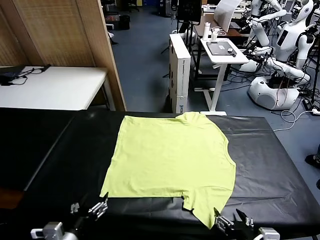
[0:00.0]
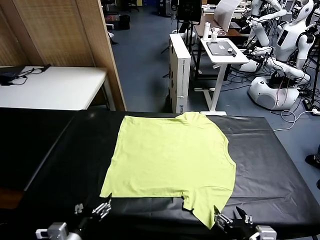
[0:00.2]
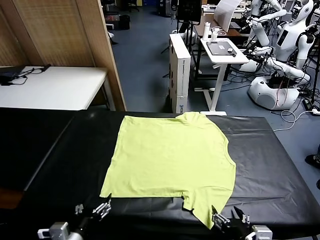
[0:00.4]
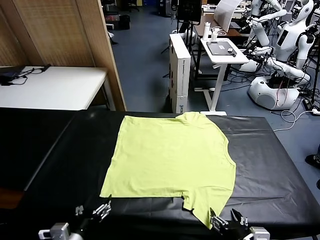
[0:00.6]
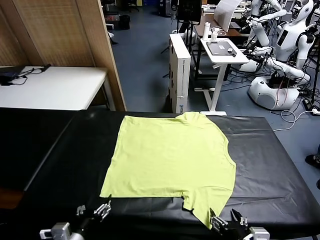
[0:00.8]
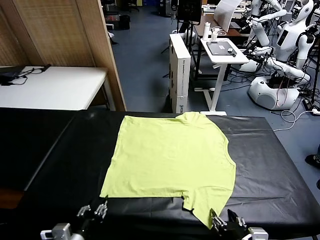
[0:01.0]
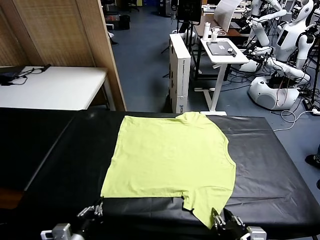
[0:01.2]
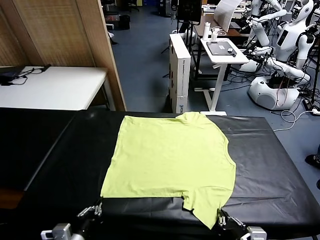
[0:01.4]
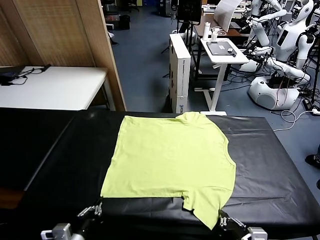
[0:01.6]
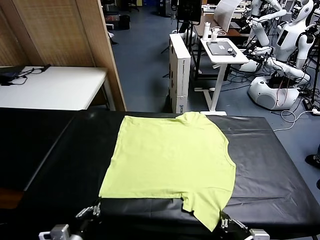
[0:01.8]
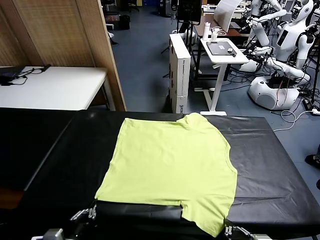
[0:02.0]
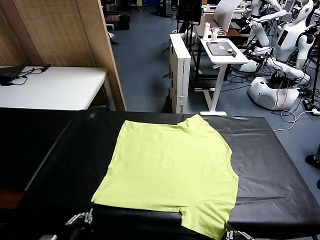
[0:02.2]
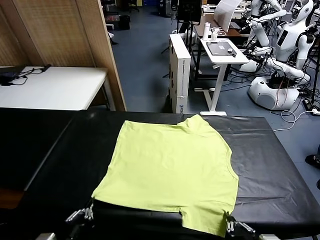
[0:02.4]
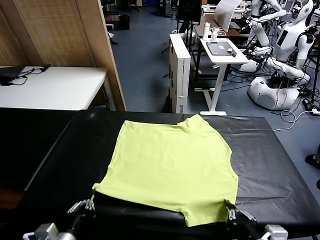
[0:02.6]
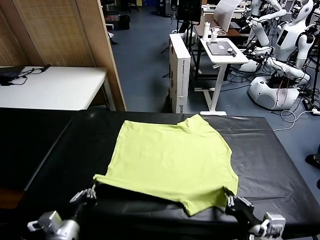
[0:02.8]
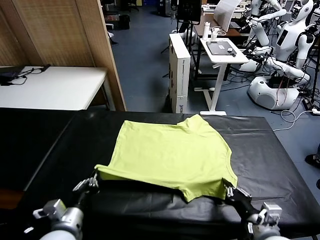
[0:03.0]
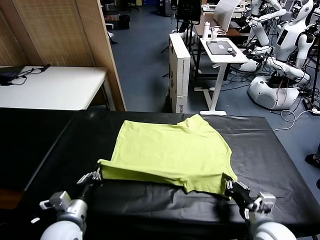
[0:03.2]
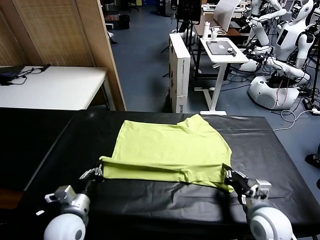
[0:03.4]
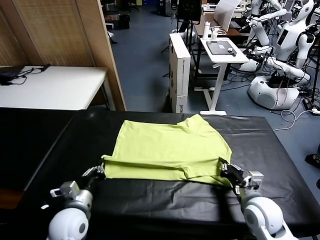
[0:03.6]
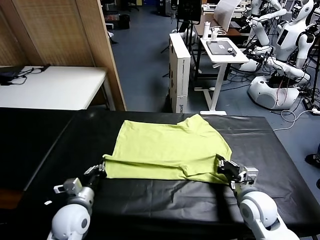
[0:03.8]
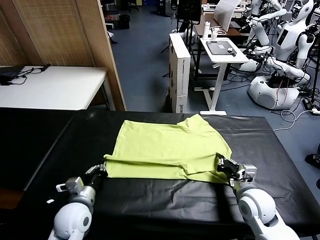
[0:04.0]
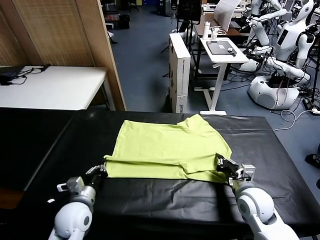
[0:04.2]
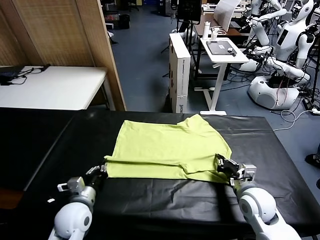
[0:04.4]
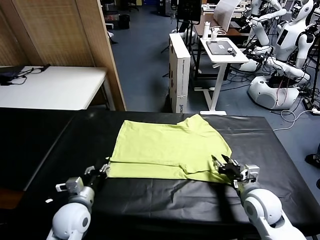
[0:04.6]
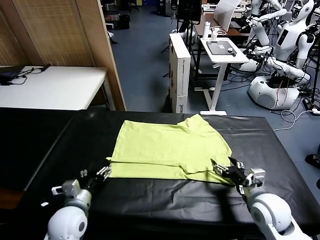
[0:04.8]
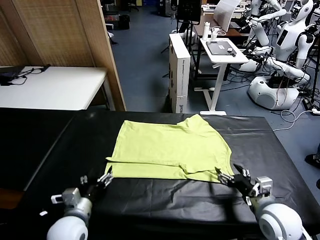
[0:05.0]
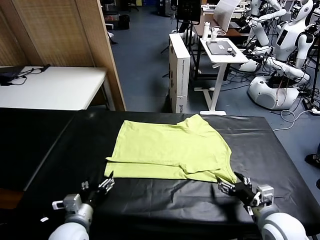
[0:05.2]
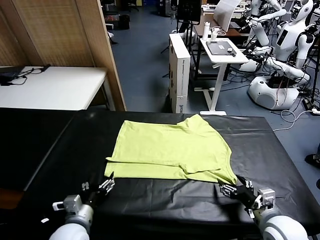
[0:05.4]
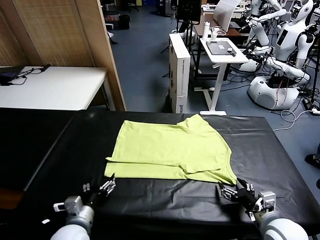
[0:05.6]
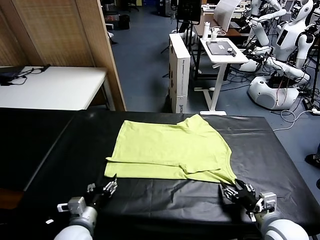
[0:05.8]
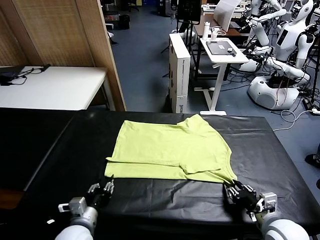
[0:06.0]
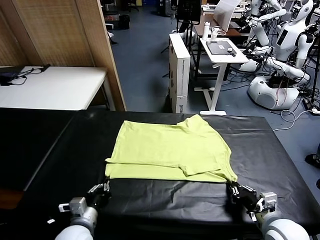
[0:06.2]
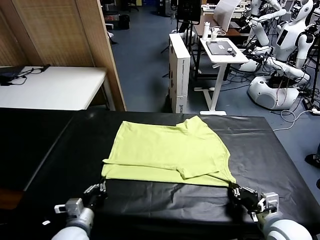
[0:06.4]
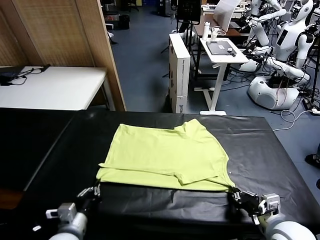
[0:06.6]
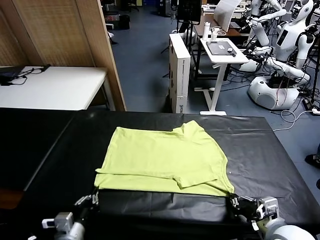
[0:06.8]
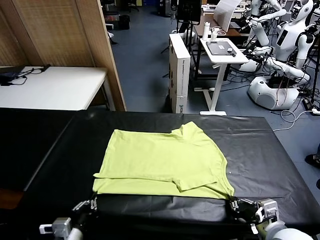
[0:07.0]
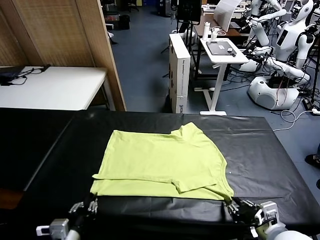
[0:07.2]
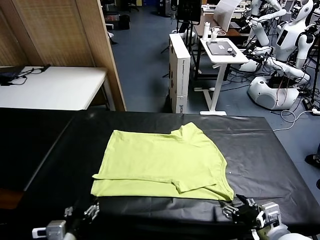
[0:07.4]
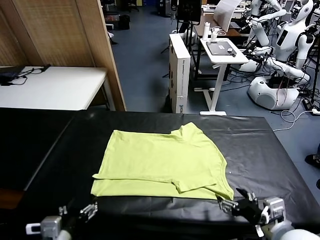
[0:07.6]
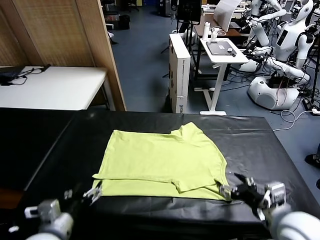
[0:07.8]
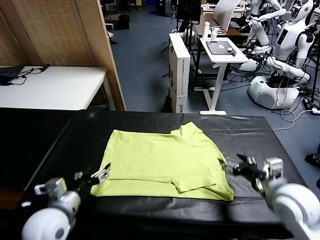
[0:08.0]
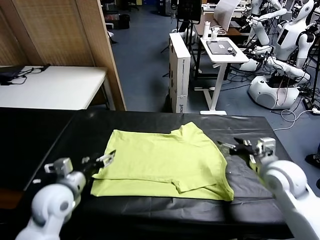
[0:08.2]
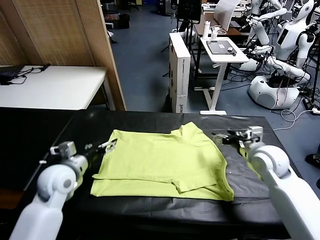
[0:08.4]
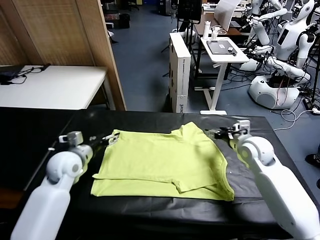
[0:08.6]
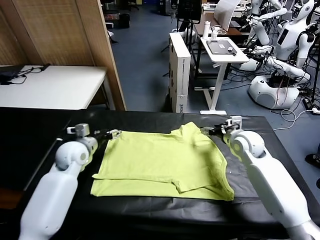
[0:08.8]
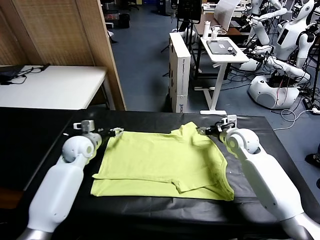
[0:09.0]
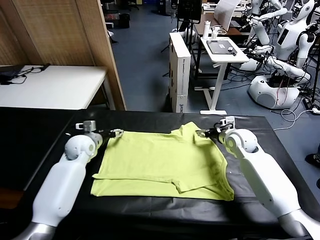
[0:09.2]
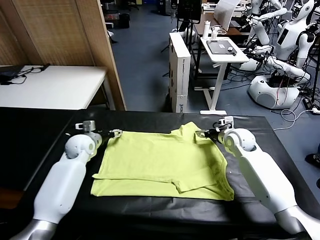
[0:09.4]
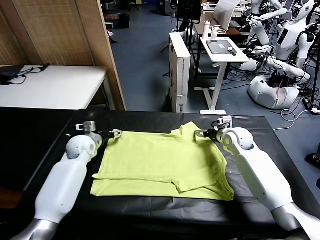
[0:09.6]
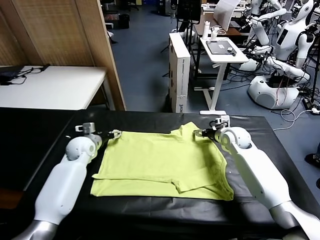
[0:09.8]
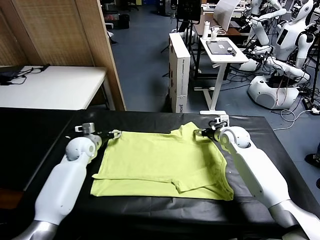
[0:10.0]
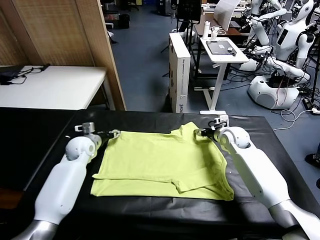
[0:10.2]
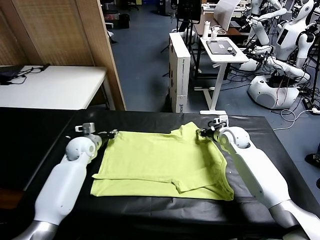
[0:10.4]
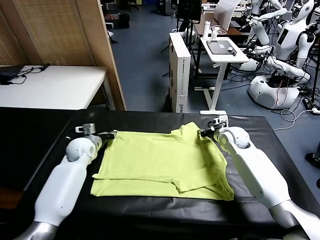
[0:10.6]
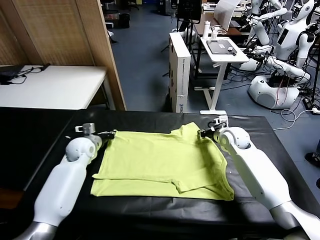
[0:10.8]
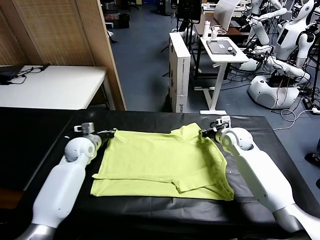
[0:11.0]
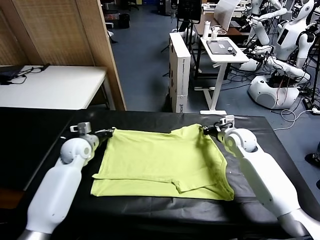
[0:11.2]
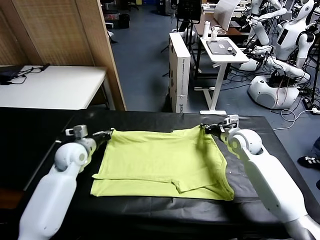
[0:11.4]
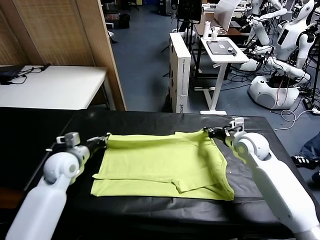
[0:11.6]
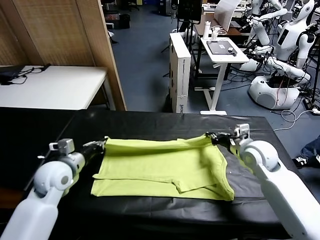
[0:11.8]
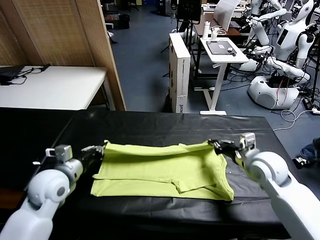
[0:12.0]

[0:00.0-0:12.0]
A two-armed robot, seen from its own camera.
Task of the whole recording: fold and organize the clothes.
Step, 0:00.0 to 0:01.6: use both grippers simultaneously to clamp the lower edge of the clothing fabric.
Step, 0:01.8 to 0:04.6: use both grippers to drag the lower edge of the fabric forward and fold it over the upper edge.
Step, 0:04.8 to 0:07.4: Drag the clothes downward with both gripper.
Step, 0:07.6 to 0:11.0: use both grippers simultaneously to clamp the upper edge of the clothing fabric.
0:01.6 to 0:03.0: The right gripper heads forward, covering about 15 cm; the left gripper is displaced forward by roughly 10 cm.
0:03.0 to 0:04.4: The right gripper opens its fingers; the left gripper opens up.
0:04.4 to 0:06.0: Both grippers travel together backward, approximately 5 cm. The right gripper closes; the left gripper closes.
0:06.0 to 0:07.6: Both grippers travel together upward, about 10 cm. The right gripper opens. The left gripper opens.
0:07.6 to 0:09.0: The two grippers go roughly 30 cm forward.
0:09.0 to 0:10.4: The left gripper closes up; the right gripper closes.
0:10.4 to 0:12.0: The grippers both shift backward by about 20 cm.

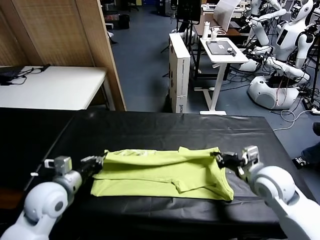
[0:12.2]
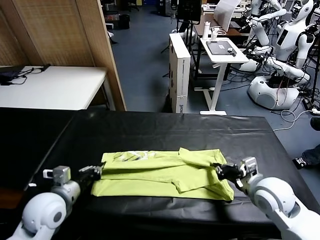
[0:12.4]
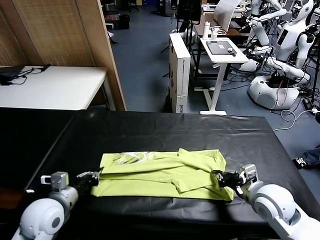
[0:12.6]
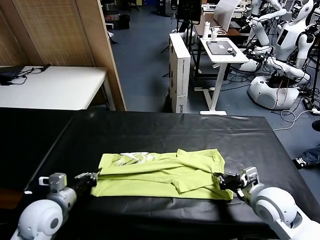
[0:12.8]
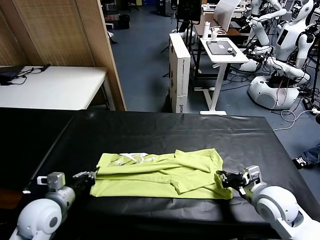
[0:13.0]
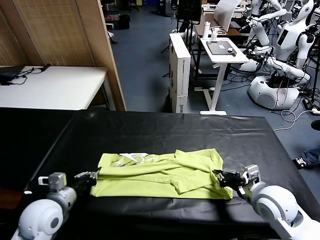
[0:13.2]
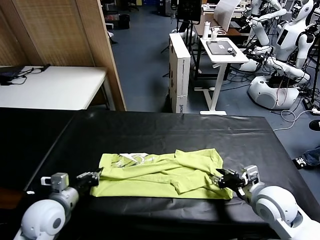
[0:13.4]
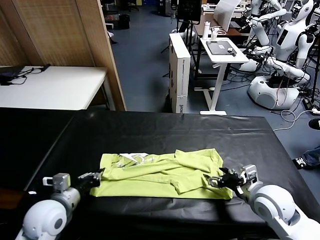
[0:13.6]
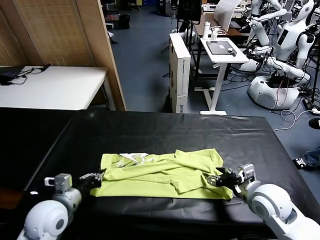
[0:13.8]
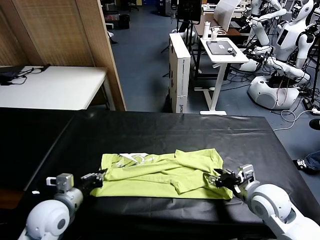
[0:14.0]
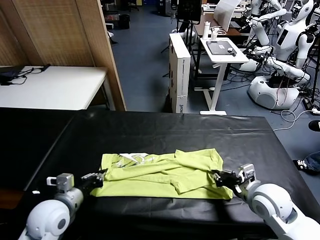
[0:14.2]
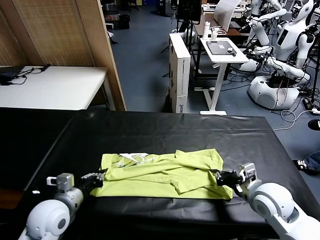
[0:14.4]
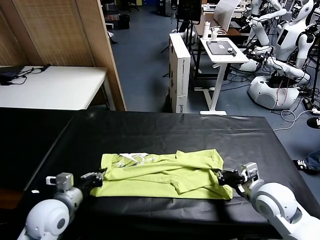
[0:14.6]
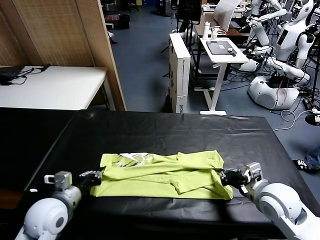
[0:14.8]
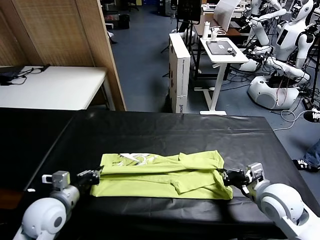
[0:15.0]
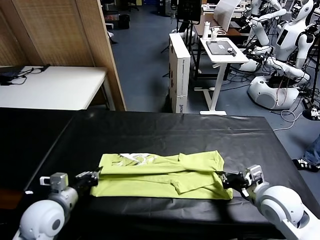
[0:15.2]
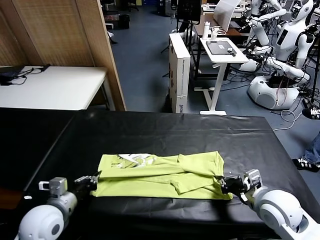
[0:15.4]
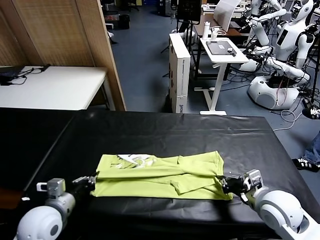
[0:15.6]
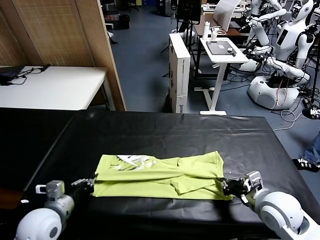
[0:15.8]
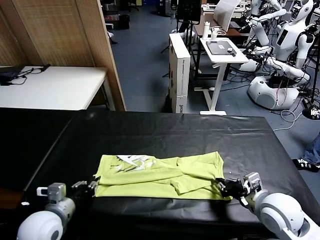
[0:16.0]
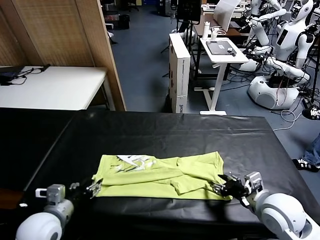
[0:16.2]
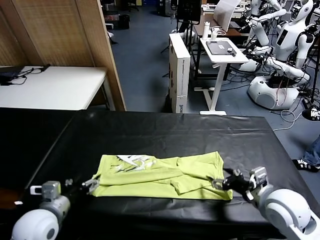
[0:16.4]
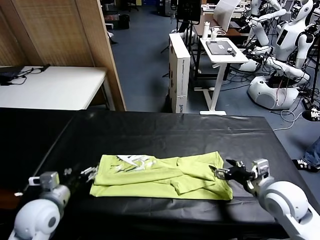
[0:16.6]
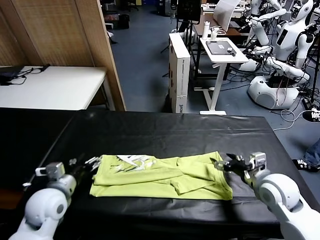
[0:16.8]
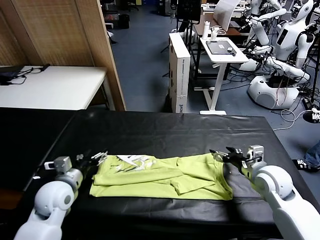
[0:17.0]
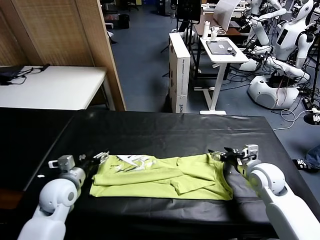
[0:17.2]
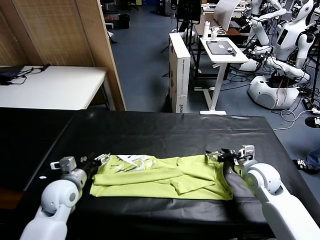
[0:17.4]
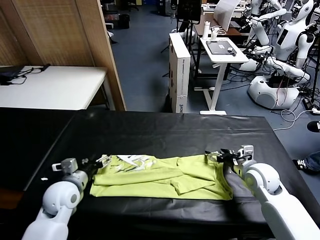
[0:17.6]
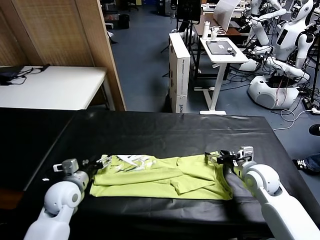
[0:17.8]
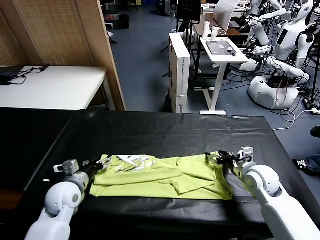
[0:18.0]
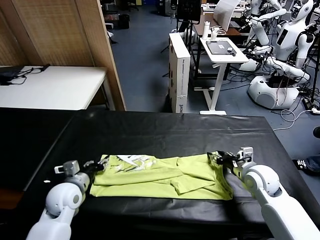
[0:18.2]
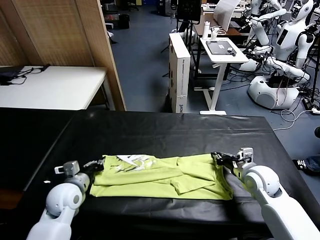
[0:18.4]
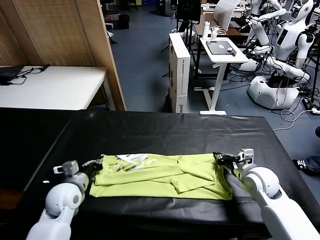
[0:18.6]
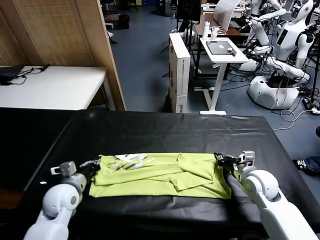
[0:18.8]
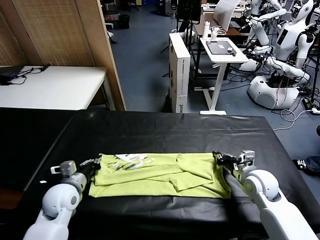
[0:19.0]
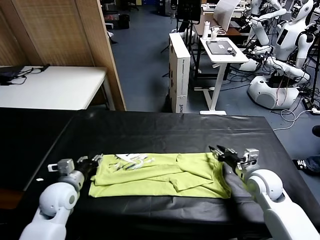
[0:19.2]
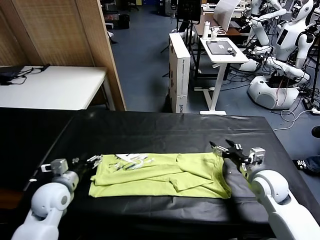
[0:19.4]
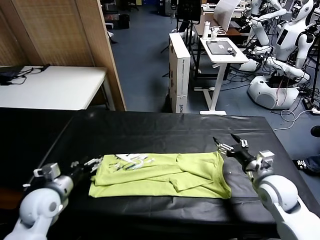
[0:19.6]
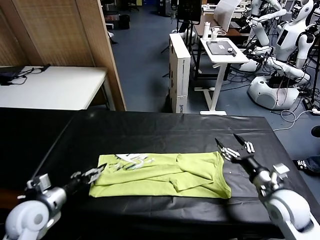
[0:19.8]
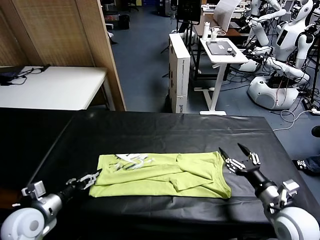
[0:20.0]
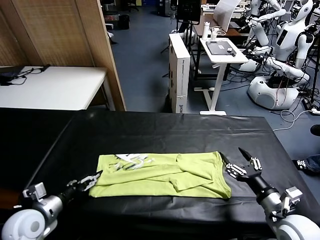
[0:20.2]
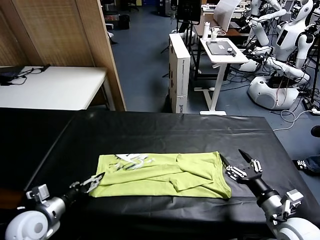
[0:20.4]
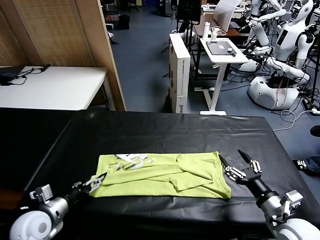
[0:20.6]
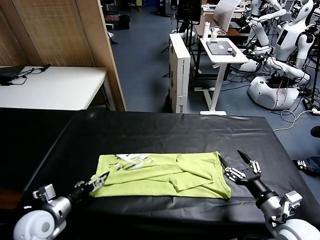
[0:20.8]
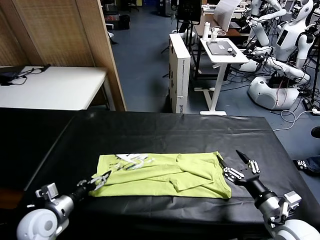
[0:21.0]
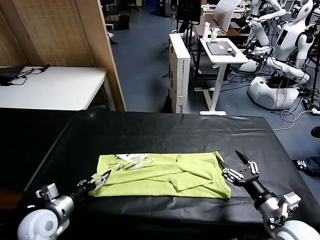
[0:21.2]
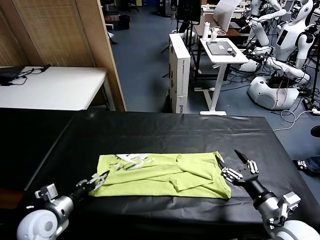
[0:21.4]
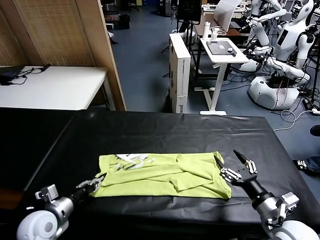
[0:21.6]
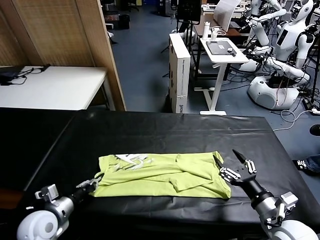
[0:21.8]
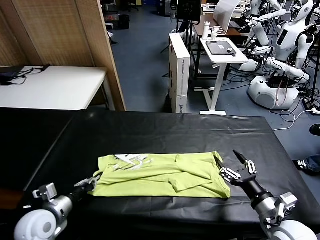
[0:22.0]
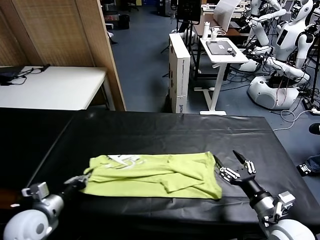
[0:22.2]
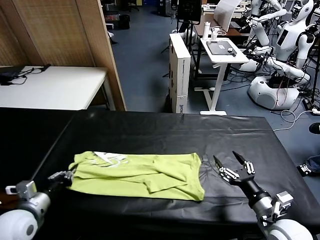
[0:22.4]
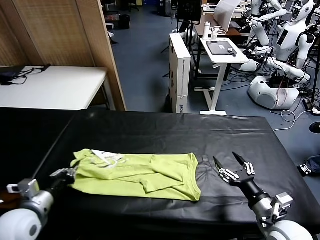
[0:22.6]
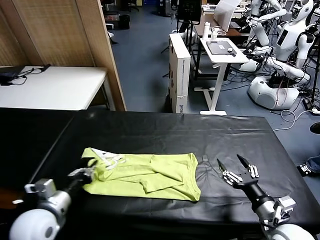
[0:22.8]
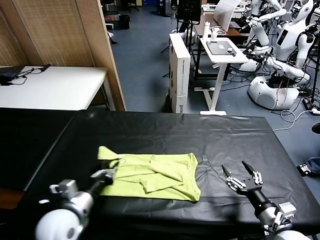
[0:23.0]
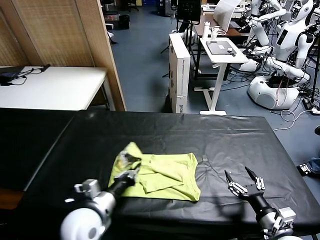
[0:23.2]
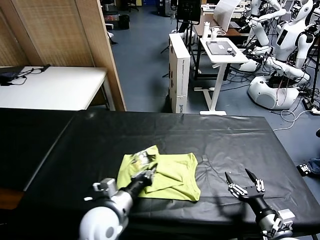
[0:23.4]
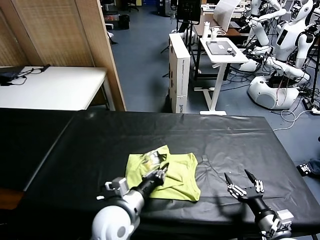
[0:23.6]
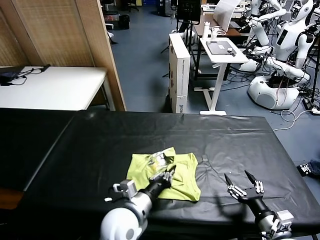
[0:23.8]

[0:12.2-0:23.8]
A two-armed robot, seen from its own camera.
Task of the whole recording: fold and organize the clothes.
Step, 0:12.2 to 0:16.2: use both grippers to drag the upper edge of the fabric backward and fold it over the lower edge.
Step, 0:16.6 to 0:21.8: use the left gripper to clamp the left edge of the fabric.
0:12.2 to 0:13.6: The right gripper opens.
0:13.6 to 0:15.0: The right gripper closes its fingers.
0:15.0 to 0:16.6: The left gripper opens; the right gripper opens up.
0:16.6 to 0:18.0: The right gripper is displaced forward by some 5 cm; the left gripper moves downward, approximately 5 cm.
0:18.0 to 0:19.4: The left gripper closes, then reopens; the right gripper closes, then opens again.
0:19.4 to 0:21.0: The right gripper goes approximately 15 cm backward. Meanwhile the left gripper moves backward, roughly 5 cm.
0:21.0 to 0:22.4: The left gripper is displaced upward by some 5 cm, and closes.
0:22.4 to 0:23.8: The left gripper goes approximately 25 cm to the right, while the right gripper moves approximately 5 cm.
